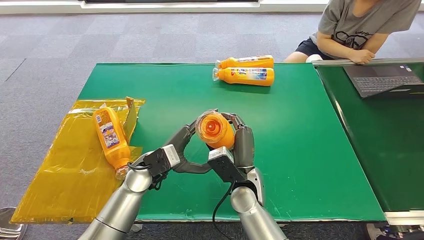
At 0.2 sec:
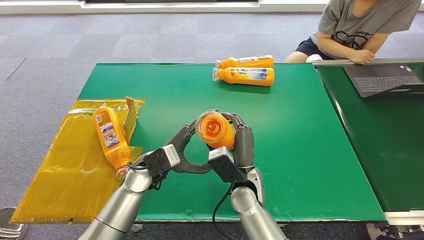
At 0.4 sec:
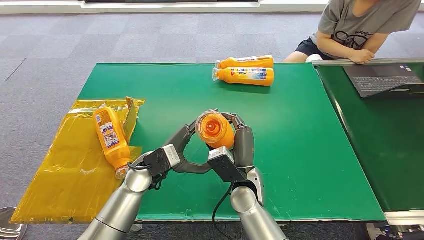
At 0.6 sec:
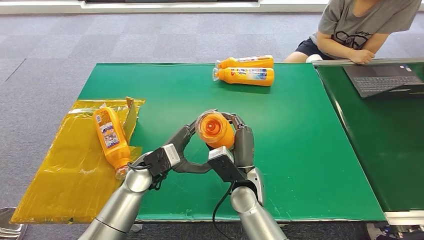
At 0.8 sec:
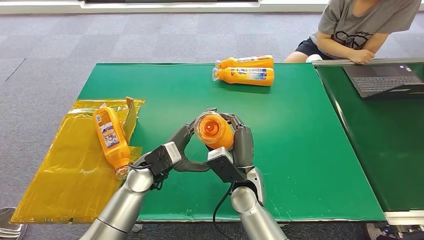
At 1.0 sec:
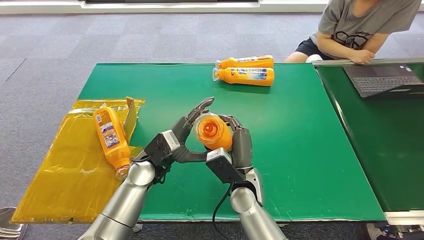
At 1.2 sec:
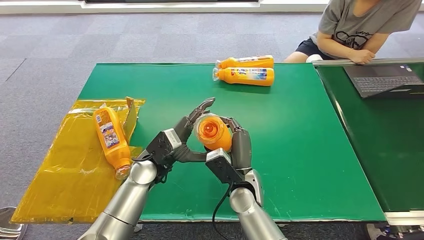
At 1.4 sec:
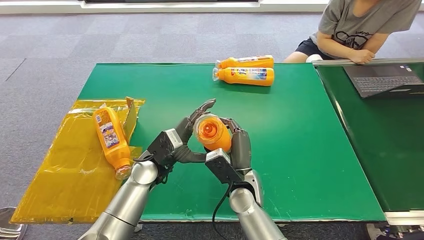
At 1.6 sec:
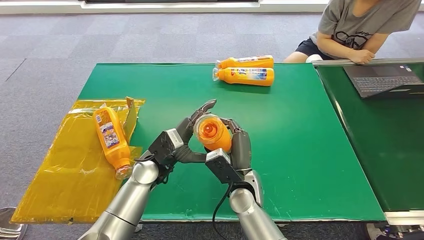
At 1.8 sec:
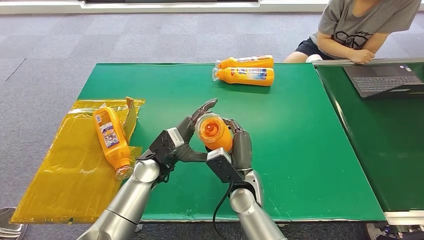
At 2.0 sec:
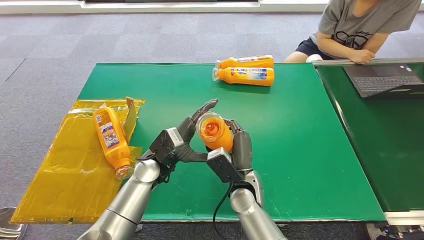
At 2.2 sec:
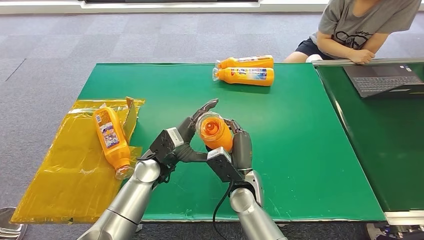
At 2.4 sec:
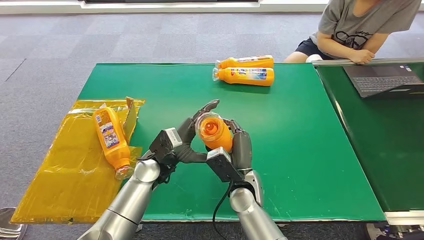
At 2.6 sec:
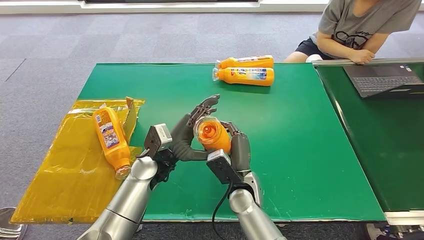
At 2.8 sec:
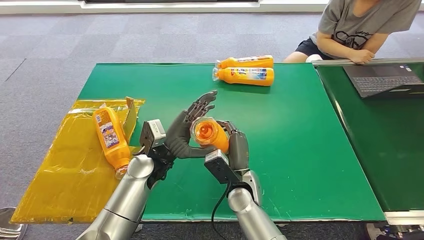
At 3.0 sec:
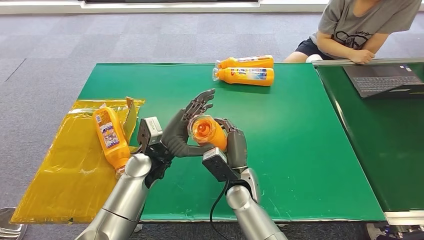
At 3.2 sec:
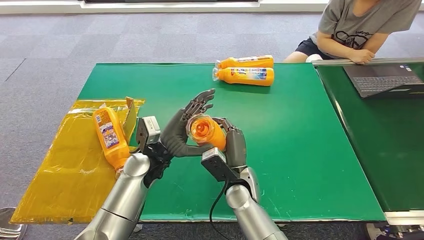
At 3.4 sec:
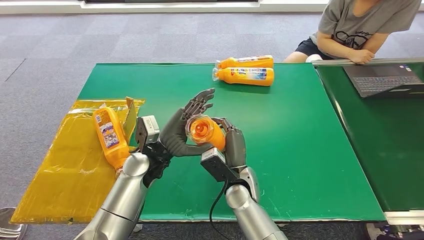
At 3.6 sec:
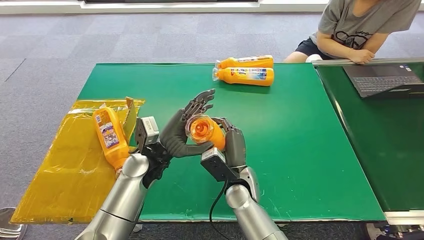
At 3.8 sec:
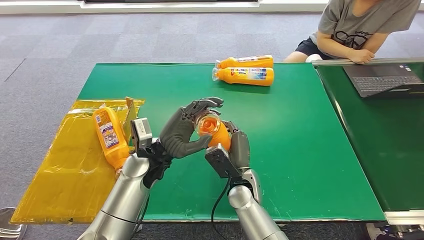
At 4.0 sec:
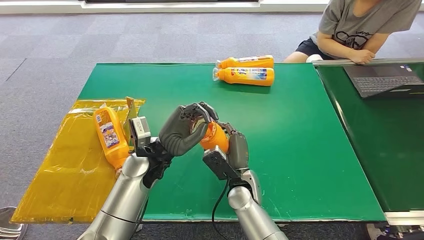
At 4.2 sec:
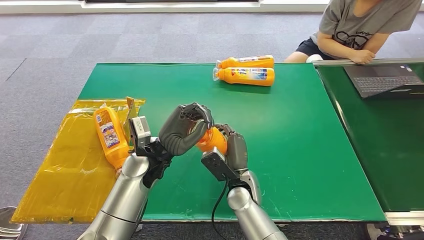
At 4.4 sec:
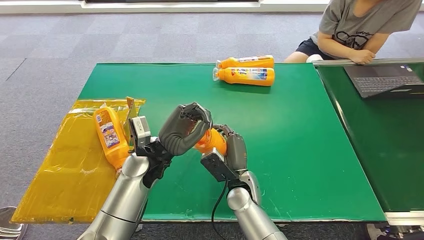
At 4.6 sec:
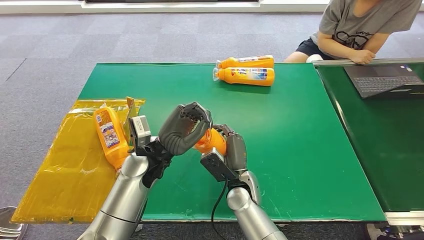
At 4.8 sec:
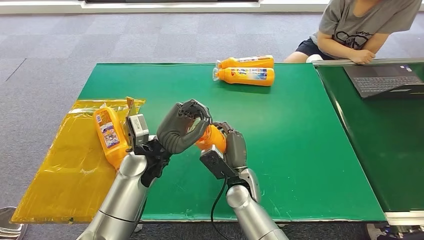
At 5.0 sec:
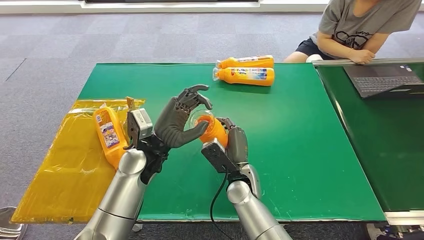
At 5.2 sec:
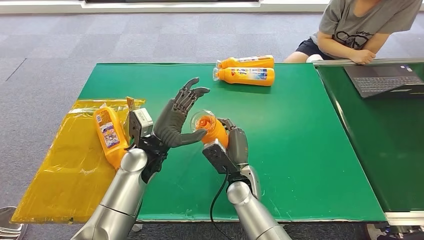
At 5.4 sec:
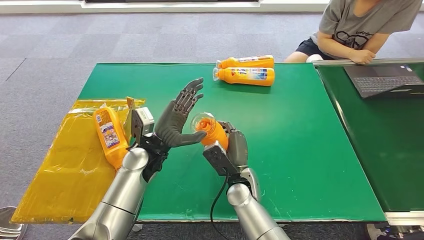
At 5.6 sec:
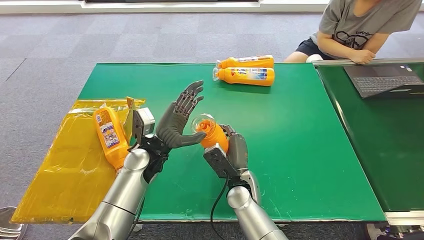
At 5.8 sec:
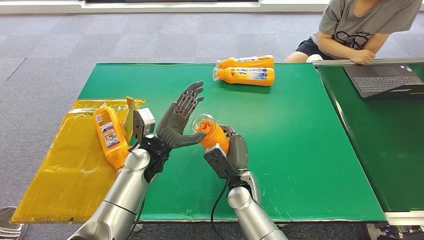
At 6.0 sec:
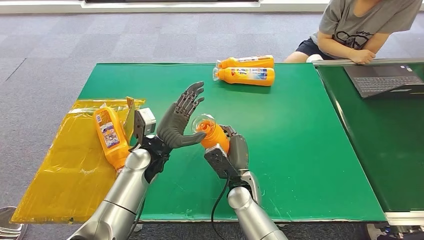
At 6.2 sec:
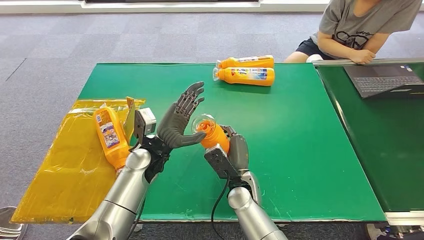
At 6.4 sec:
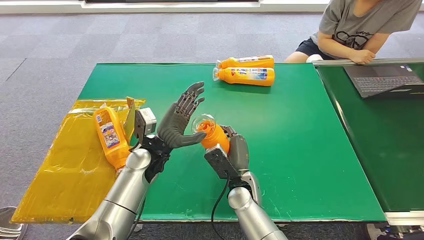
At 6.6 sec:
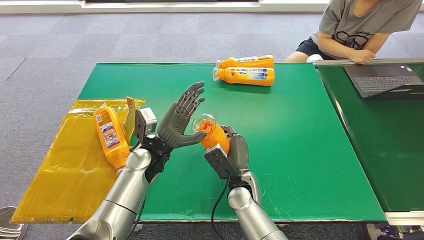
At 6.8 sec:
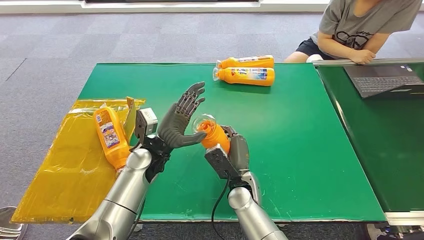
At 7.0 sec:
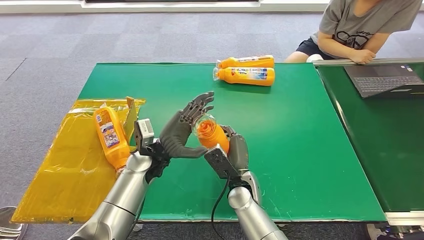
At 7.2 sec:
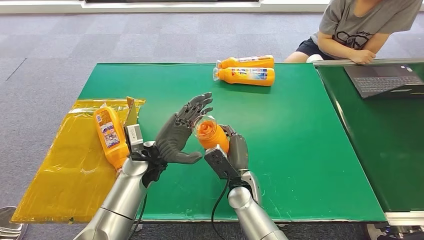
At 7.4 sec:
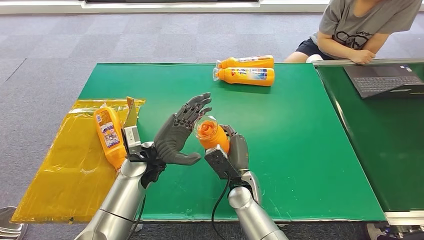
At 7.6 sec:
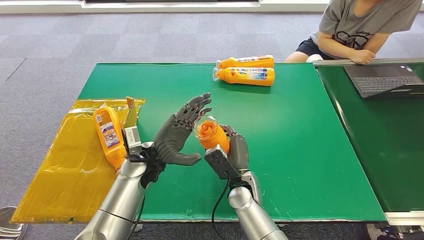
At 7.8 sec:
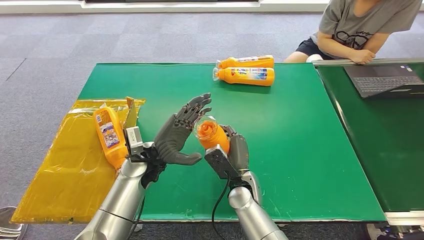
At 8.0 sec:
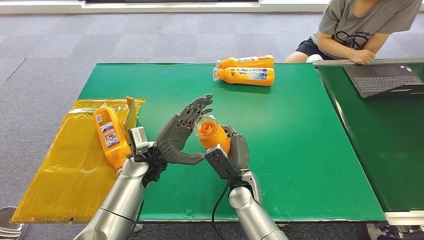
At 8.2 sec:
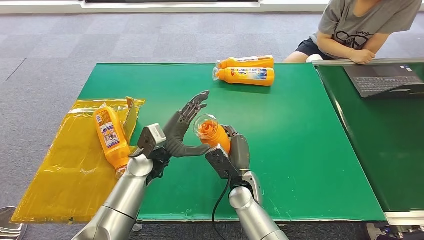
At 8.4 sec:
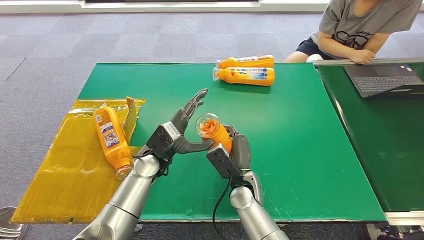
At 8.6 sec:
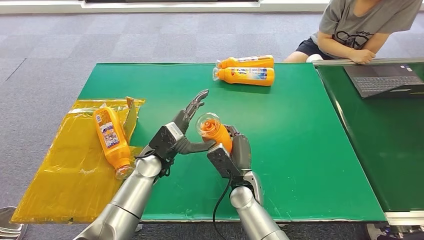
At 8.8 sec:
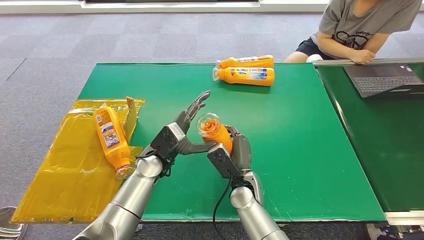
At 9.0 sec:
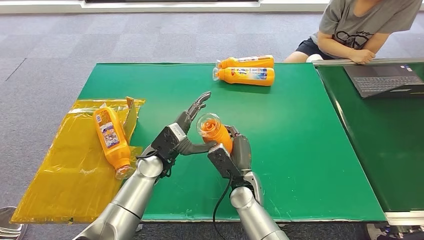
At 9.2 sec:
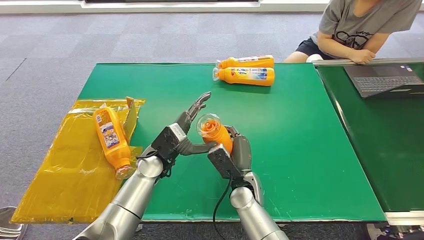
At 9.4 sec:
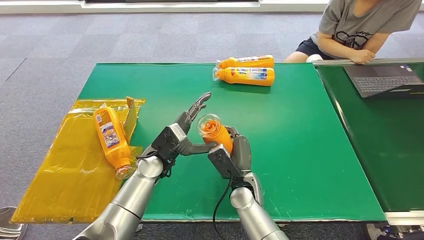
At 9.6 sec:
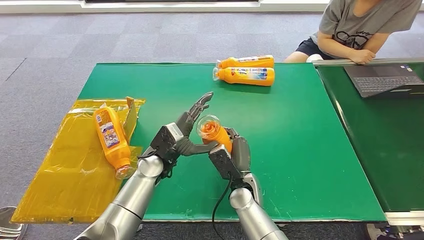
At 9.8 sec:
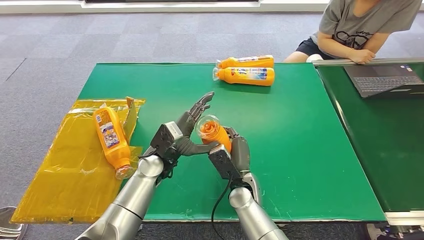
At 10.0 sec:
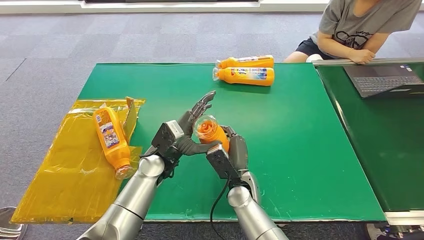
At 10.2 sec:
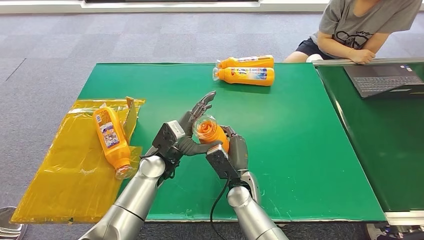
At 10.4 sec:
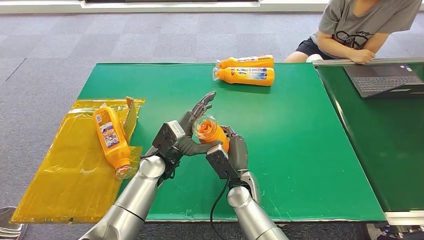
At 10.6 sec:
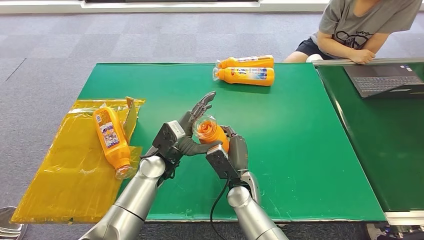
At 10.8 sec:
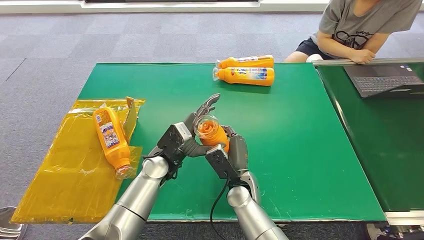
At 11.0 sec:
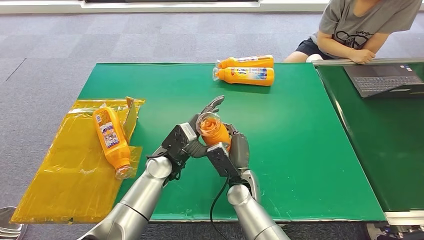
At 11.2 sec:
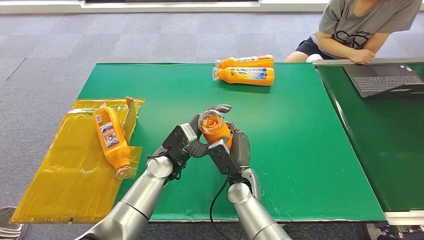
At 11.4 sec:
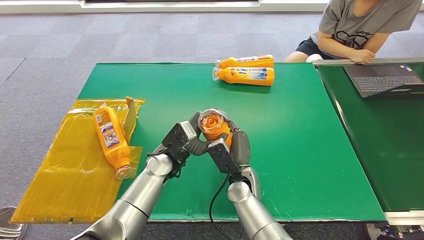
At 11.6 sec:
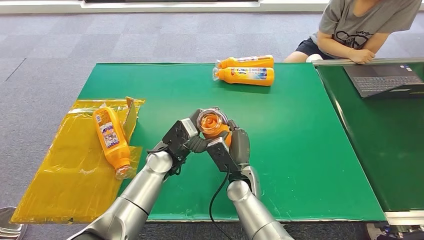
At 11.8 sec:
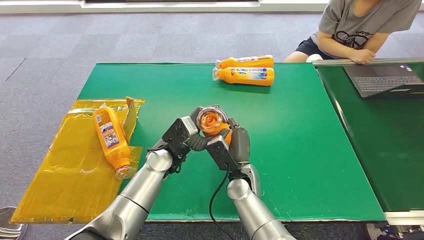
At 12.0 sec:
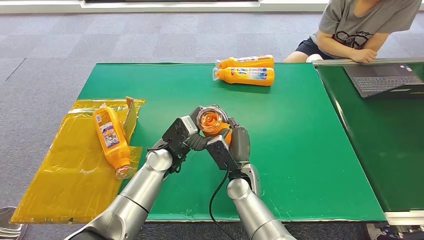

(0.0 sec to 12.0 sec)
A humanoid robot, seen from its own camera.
0.0 sec - 1.6 sec: The hands stay close to where they were, moving slightly.
1.6 sec - 3.0 sec: The hands stay close to where they were, moving slightly.
3.0 sec - 7.6 sec: The hands stay close to where they were, moving slightly.
9.0 sec - 12.0 sec: The hands stay close to where they were, moving slightly.

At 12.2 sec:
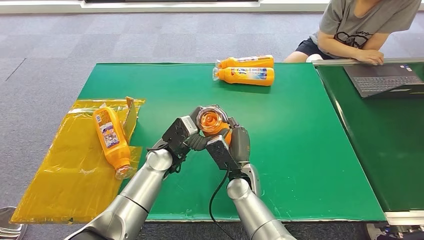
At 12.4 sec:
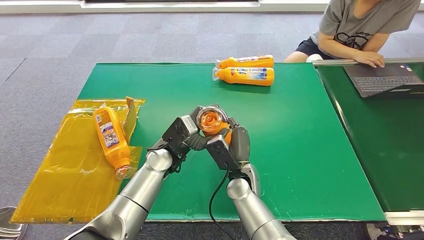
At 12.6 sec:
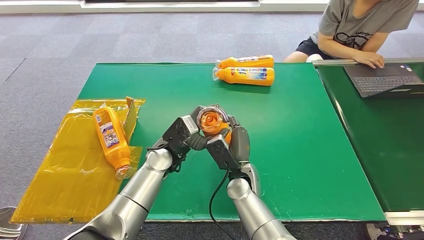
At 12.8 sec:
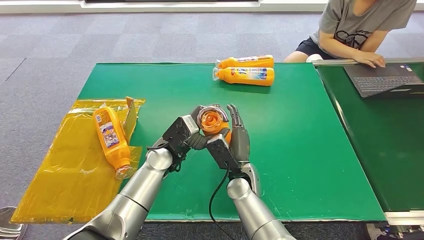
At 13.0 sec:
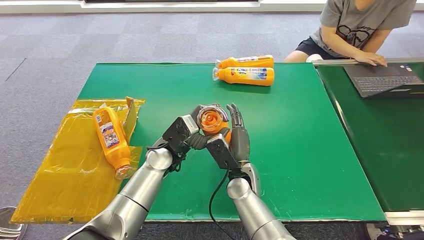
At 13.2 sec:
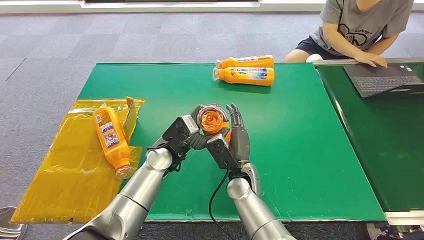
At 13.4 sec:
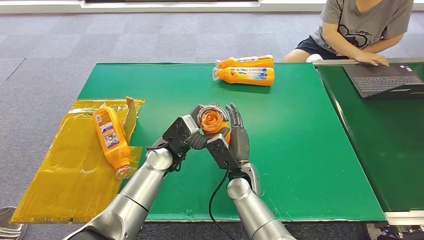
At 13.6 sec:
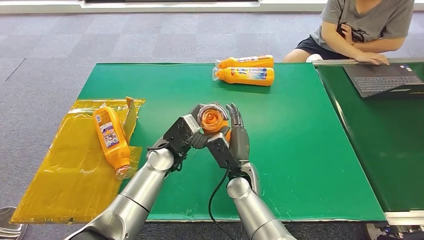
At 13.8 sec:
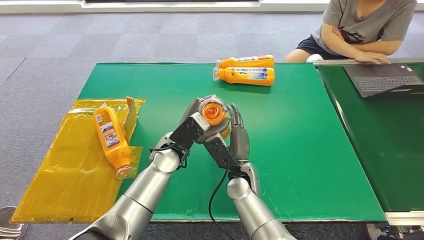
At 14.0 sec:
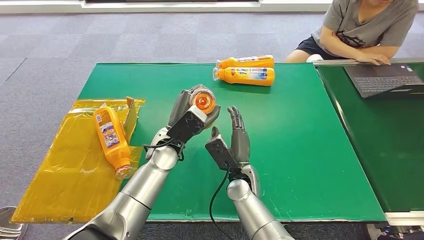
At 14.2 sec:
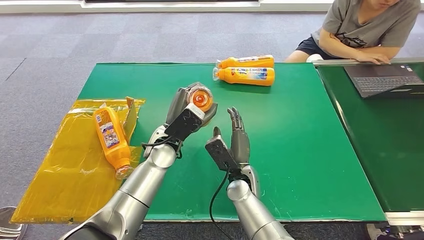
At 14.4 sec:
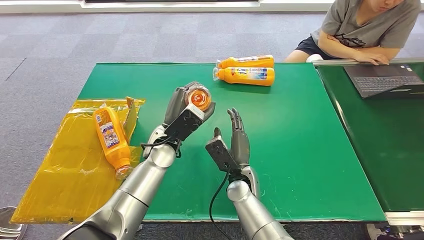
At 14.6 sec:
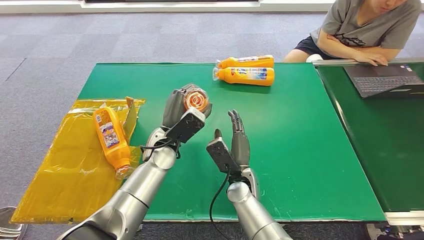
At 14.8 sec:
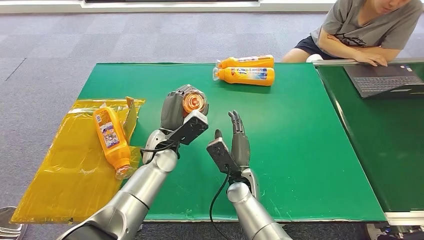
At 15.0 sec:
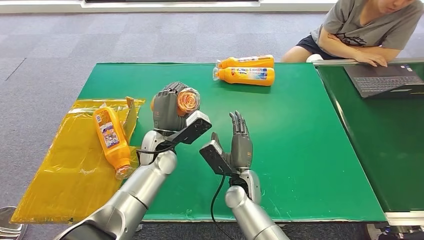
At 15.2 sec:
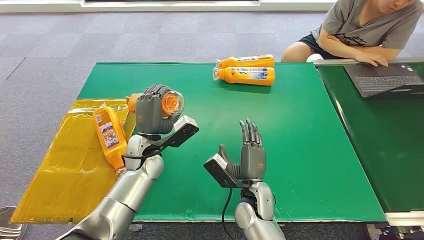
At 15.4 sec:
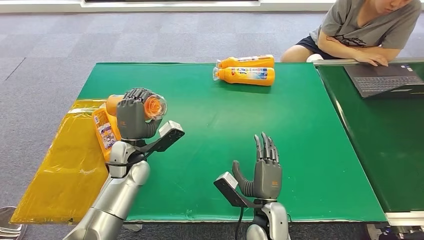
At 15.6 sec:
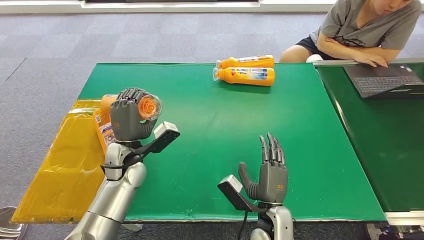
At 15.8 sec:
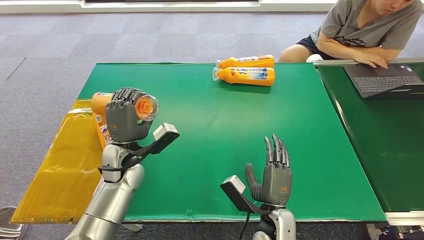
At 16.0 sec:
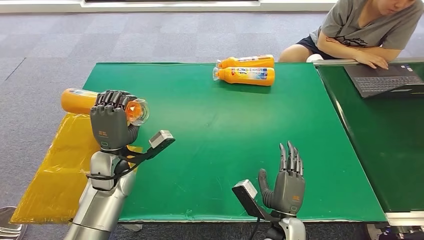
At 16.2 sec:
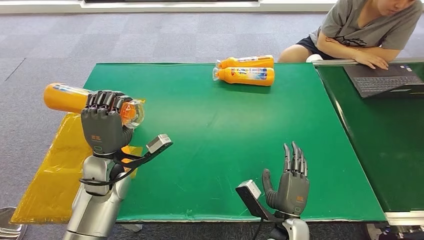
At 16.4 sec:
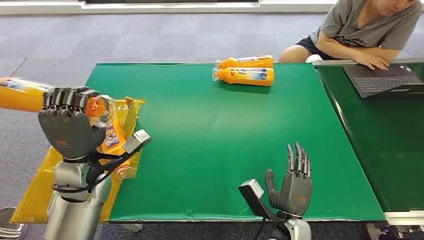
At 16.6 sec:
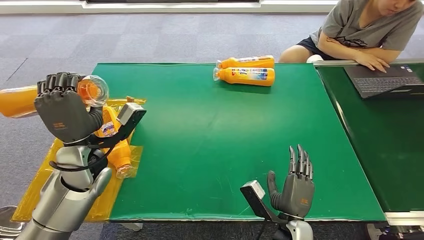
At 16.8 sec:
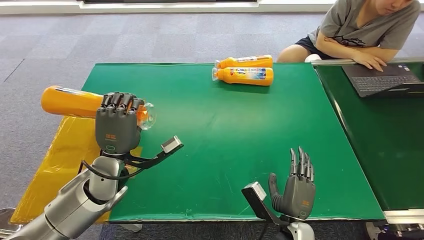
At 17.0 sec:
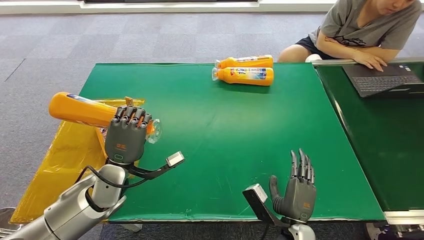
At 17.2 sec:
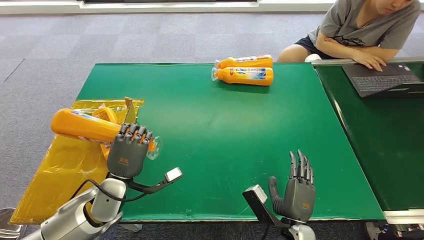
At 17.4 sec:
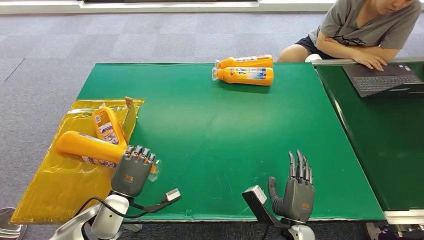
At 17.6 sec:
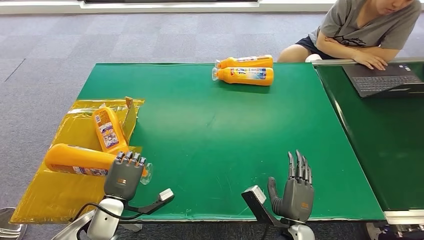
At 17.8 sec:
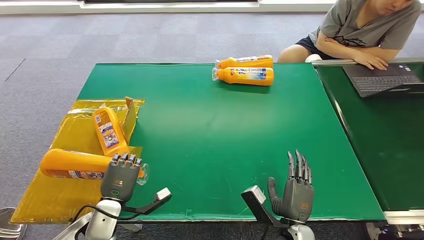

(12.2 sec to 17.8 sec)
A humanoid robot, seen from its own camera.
Step, 12.2 sec - 17.6 sec: Turn the bottle to the front side.
12.2 sec - 13.6 sec: There are only small adjustments of the hands.
16.4 sec - 17.8 sec: The left hand is displaced downward and backward by about 15 cm.
